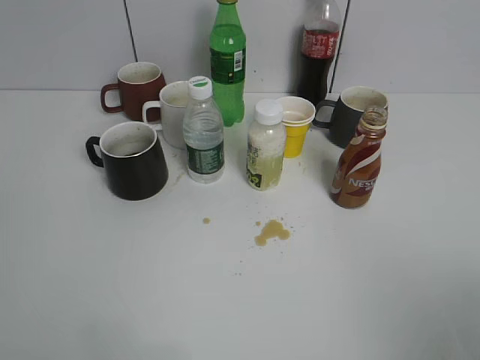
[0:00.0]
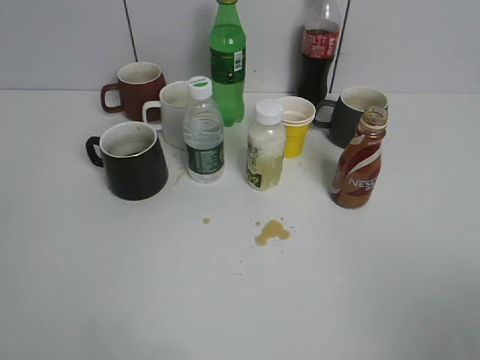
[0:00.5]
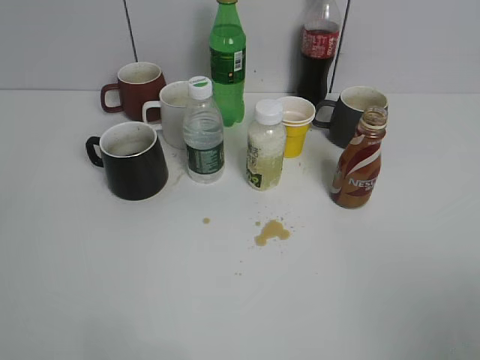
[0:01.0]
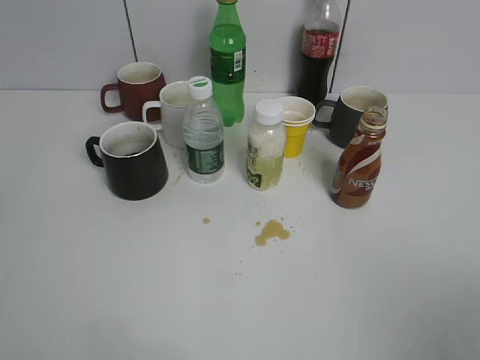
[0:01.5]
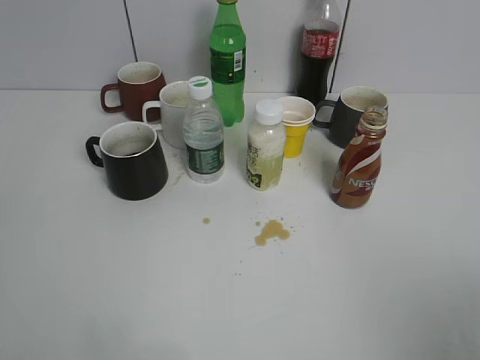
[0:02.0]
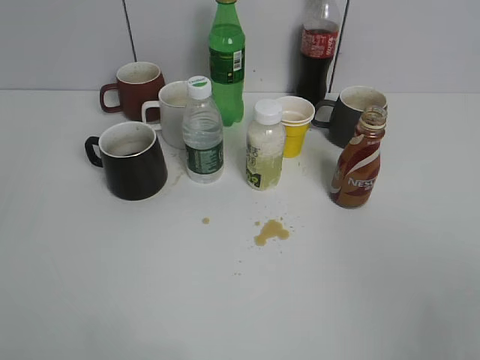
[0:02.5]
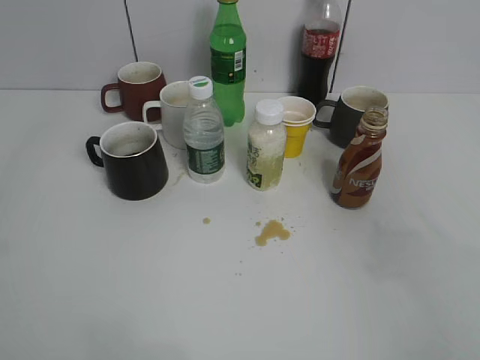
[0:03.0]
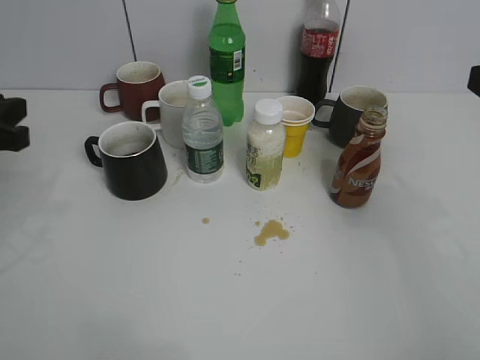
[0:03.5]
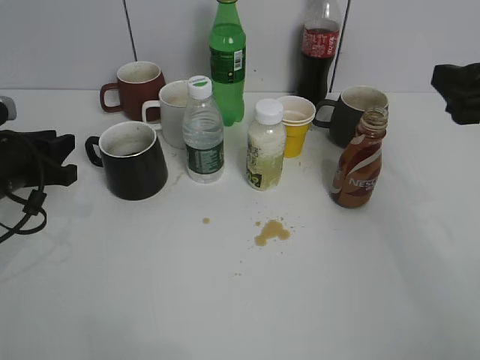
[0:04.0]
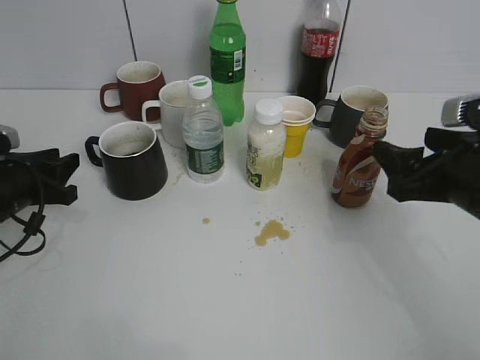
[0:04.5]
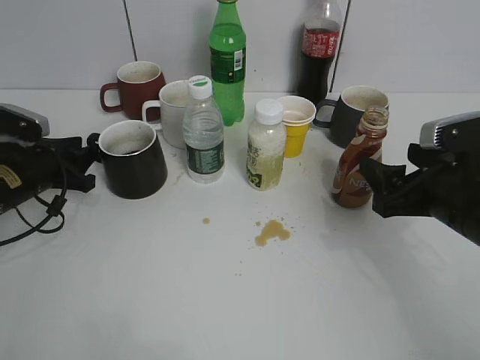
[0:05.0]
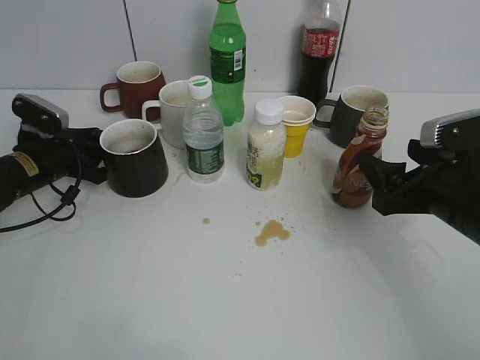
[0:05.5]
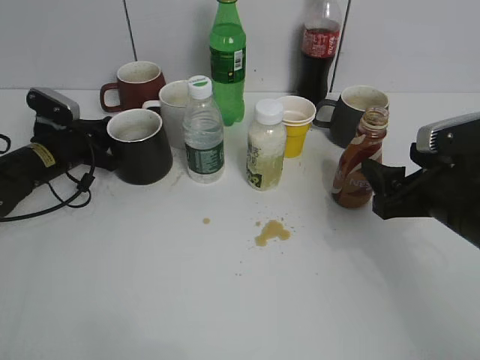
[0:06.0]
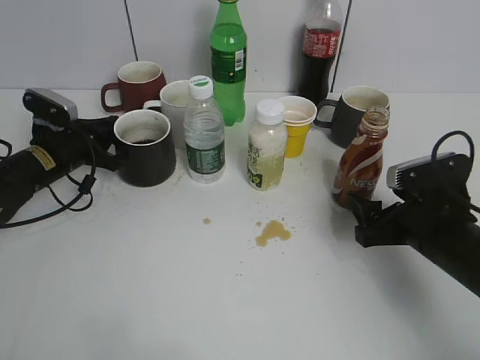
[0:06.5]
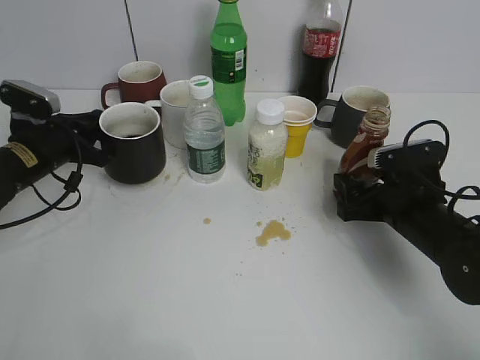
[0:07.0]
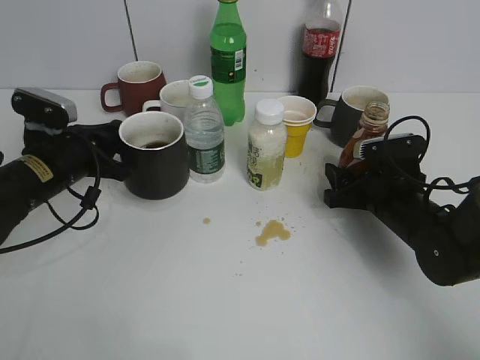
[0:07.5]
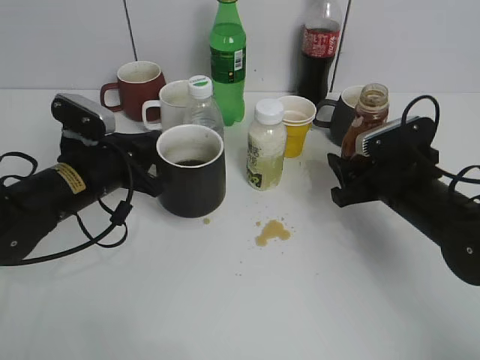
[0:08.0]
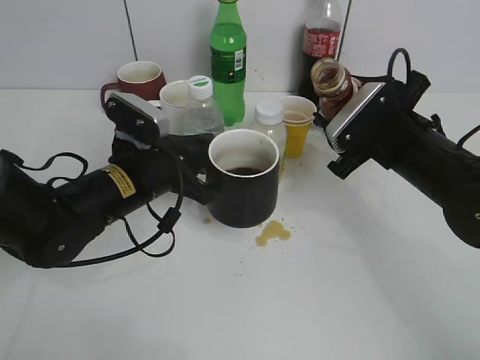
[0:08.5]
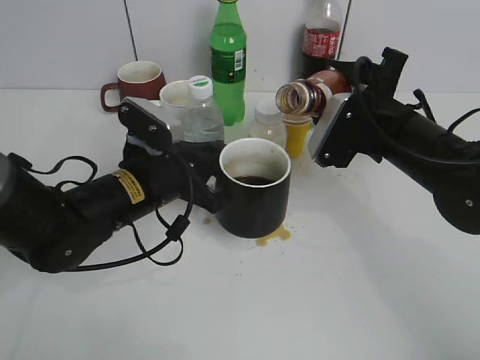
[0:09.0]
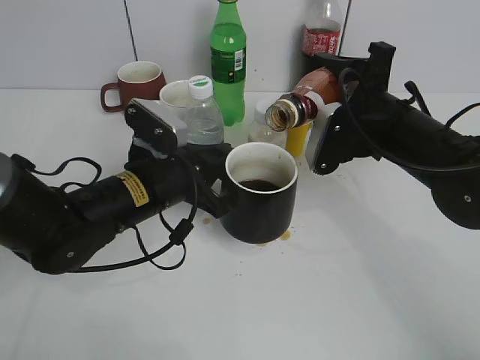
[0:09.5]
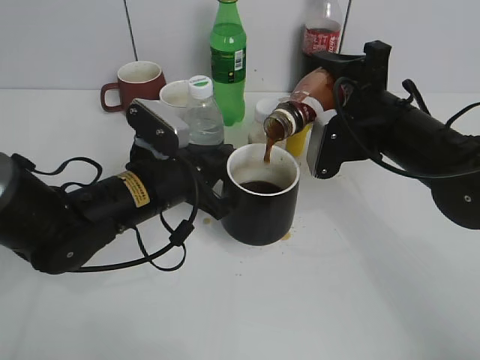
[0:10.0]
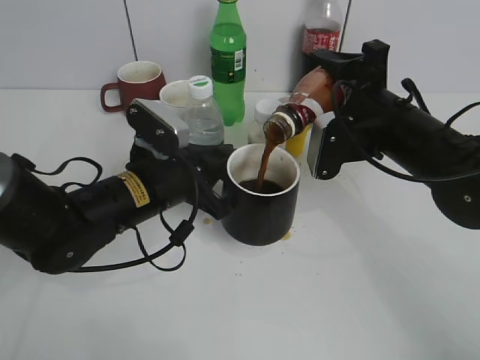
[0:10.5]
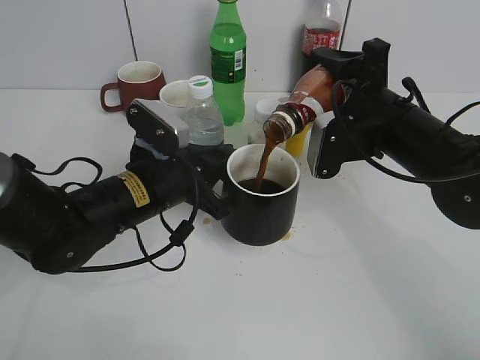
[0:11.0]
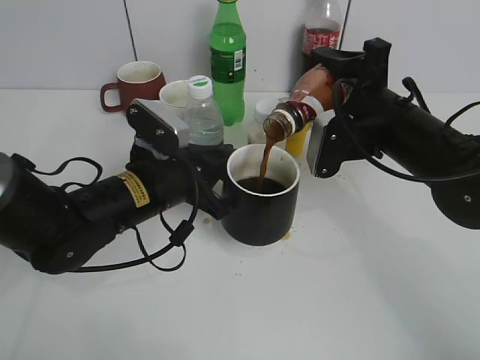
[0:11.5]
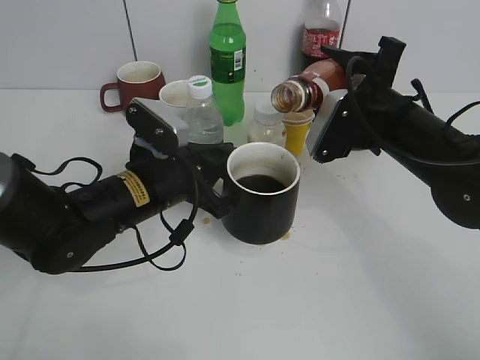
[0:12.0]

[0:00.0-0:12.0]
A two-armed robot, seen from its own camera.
Step, 0:02.5 to 0:05.5: Grasp the black cup with left gripper.
Step, 0:06.5 to 0:07.5: Lift the black cup with left gripper.
0:02.0 to 0:04.0: The left gripper moves forward and downward, approximately 35 cm. Meanwhile the right gripper is displaced forward by roughly 25 cm.
0:04.0 to 0:06.0: The left gripper travels forward and downward by about 15 cm, and closes its fingers. Meanwhile the right gripper heads downward, covering roughly 10 cm.
0:06.0 to 0:08.0: The right gripper travels forward and downward by some 10 cm, and closes up. The left gripper heads backward, to the right and upward, covering some 15 cm.
0:08.0 to 0:10.0: The right gripper heads upward, covering some 10 cm. Meanwhile the left gripper goes some 10 cm to the right.
0:10.0 to 0:12.0: The grippers move only a little.

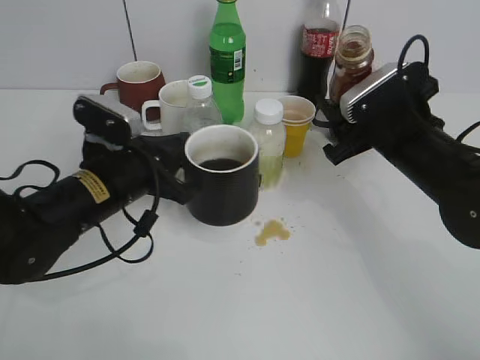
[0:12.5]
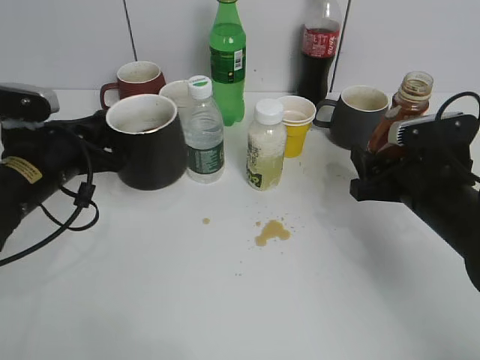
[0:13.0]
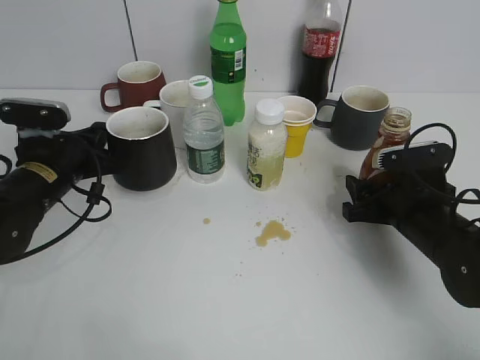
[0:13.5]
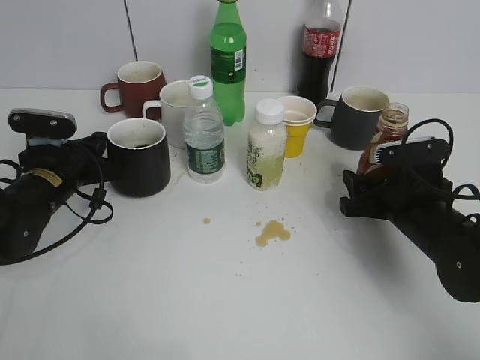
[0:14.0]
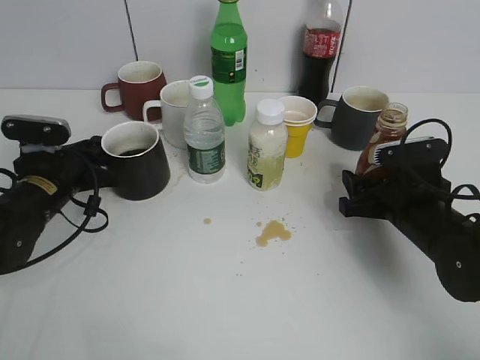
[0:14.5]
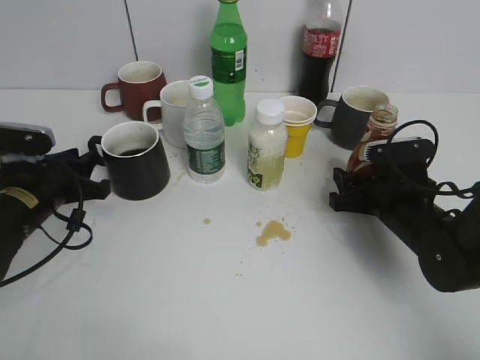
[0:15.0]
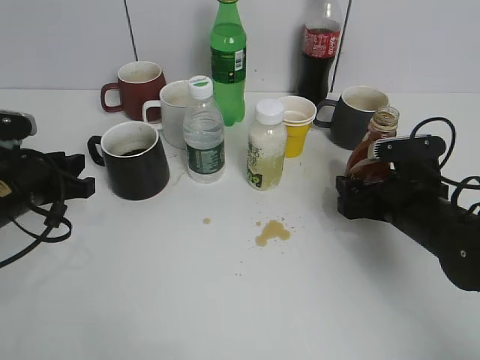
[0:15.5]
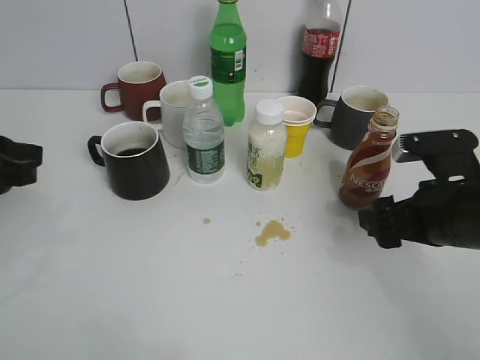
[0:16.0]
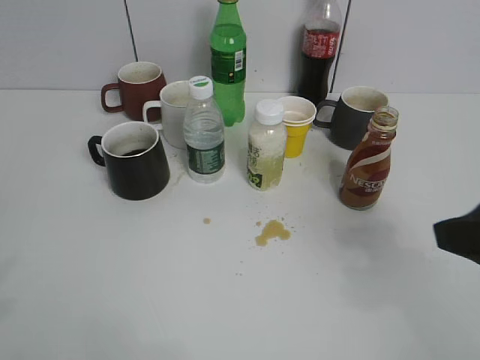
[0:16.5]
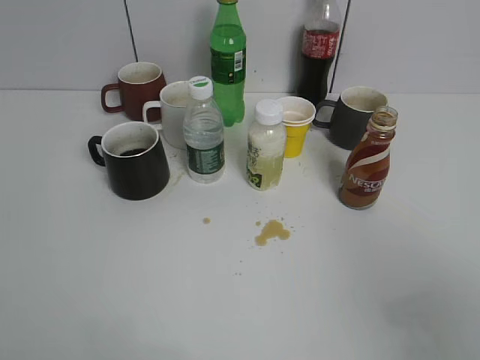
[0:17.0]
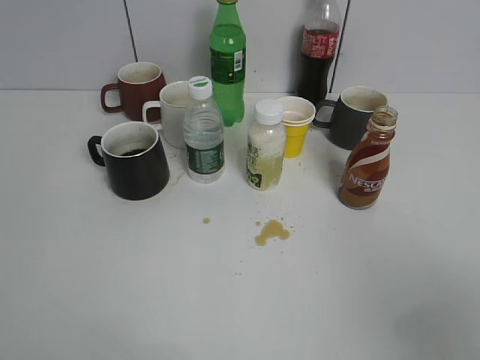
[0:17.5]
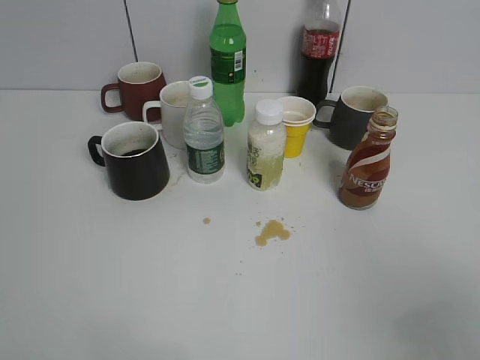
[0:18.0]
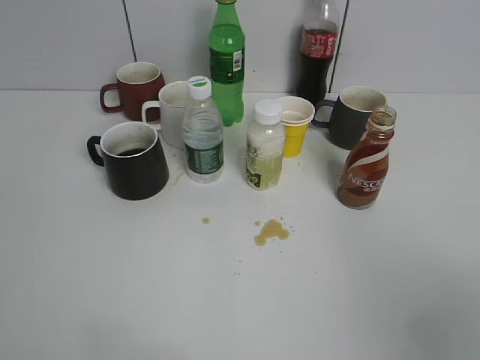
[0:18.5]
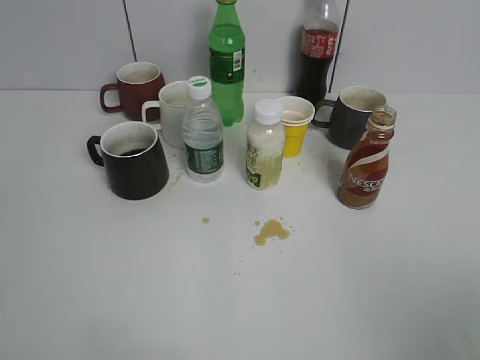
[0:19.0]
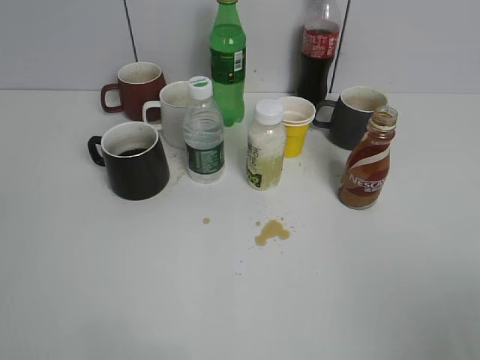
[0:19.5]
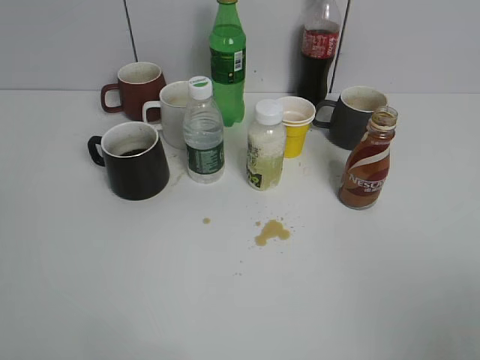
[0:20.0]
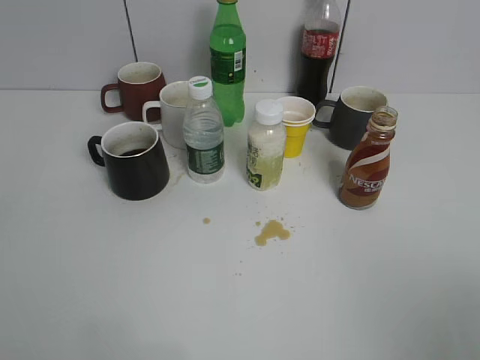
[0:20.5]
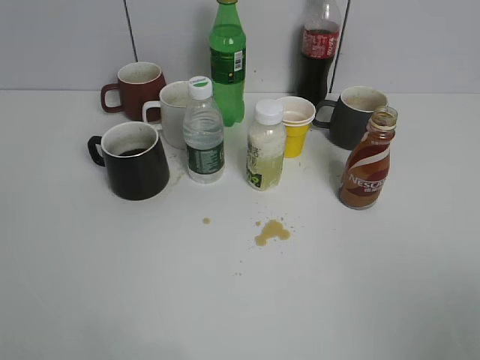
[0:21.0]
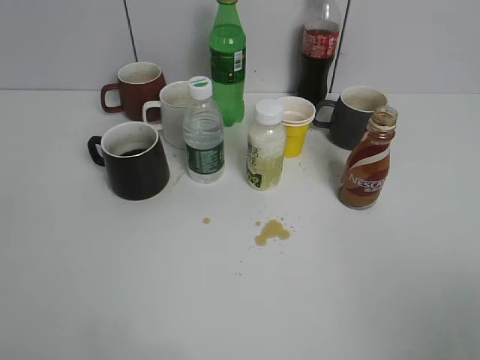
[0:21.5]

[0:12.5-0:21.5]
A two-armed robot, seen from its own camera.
Step, 0:12.5 to 0:15.5: Place the coffee bottle on the table with right gripper.
0:12.5 to 0:14.5: The right gripper travels downward by approximately 10 cm, while the left gripper travels to the left, downward and forward by about 10 cm, and opens its fingers.
0:14.5 to 0:17.0: The grippers both shift backward and upward by approximately 35 cm. The right gripper opens up.
0:19.5 to 0:21.5: Both grippers stay about where they are.
